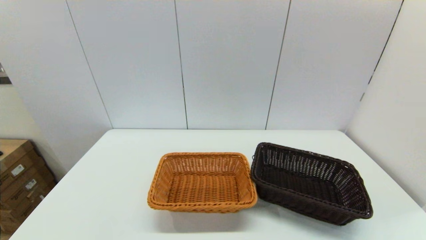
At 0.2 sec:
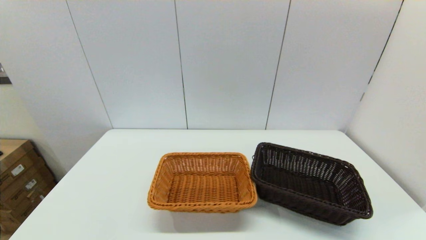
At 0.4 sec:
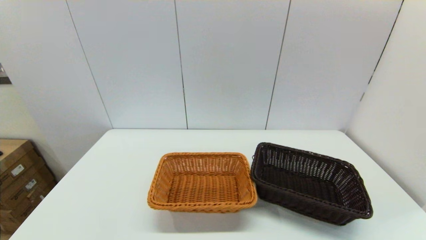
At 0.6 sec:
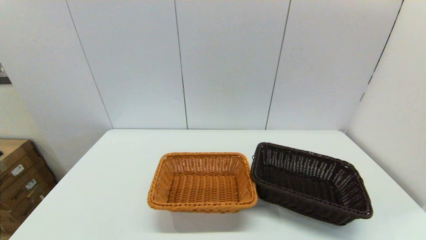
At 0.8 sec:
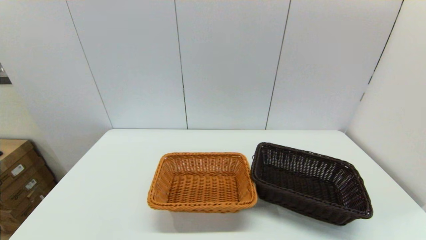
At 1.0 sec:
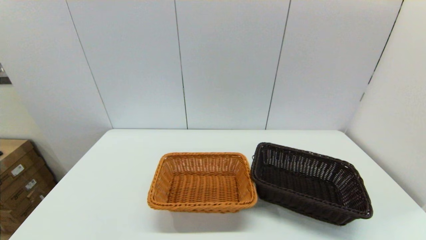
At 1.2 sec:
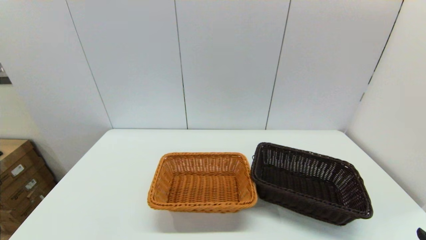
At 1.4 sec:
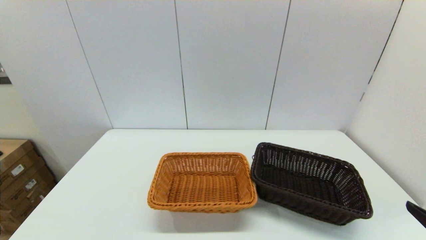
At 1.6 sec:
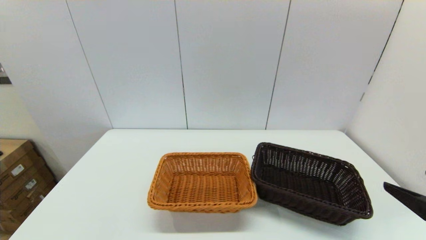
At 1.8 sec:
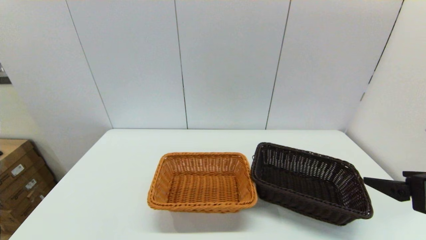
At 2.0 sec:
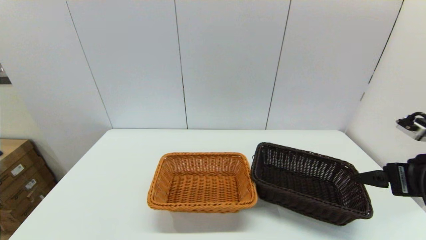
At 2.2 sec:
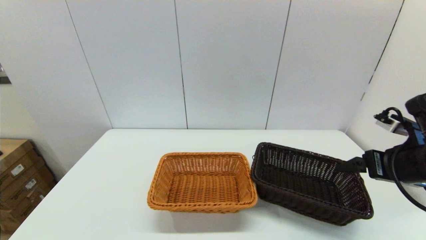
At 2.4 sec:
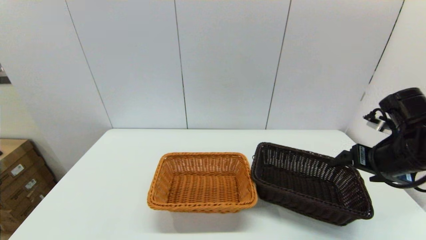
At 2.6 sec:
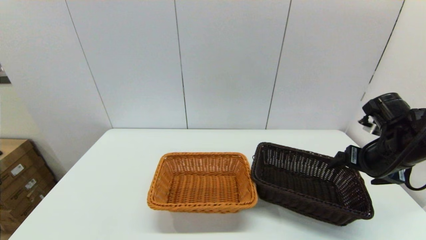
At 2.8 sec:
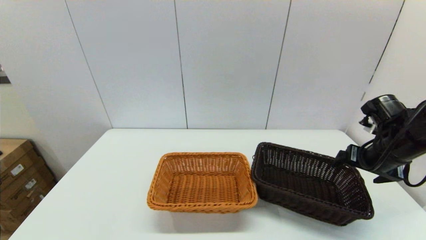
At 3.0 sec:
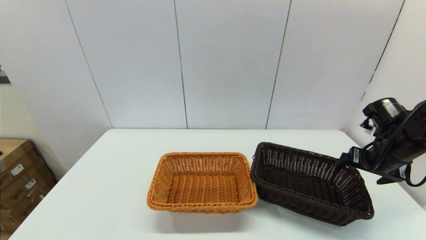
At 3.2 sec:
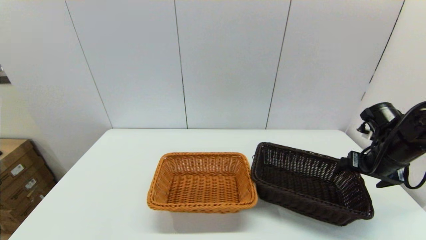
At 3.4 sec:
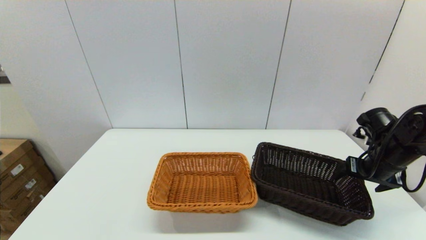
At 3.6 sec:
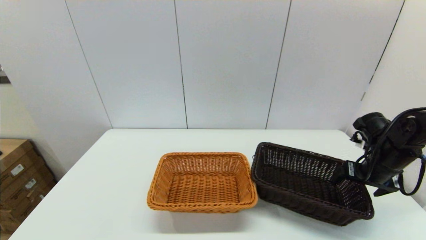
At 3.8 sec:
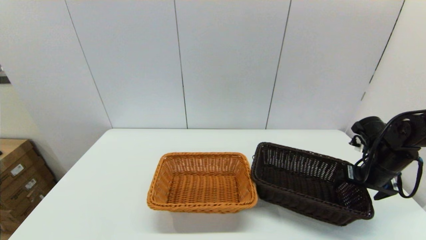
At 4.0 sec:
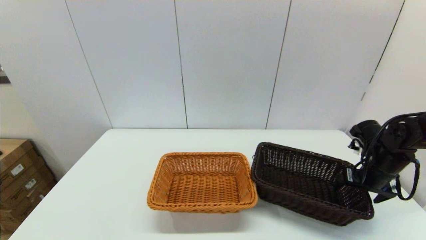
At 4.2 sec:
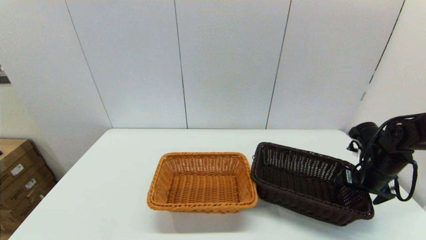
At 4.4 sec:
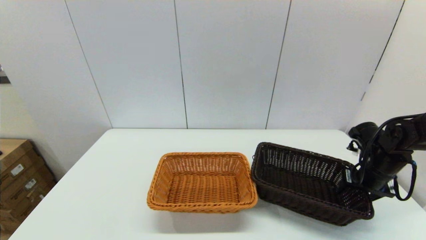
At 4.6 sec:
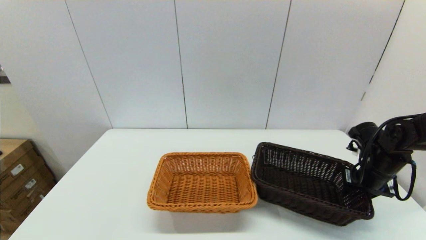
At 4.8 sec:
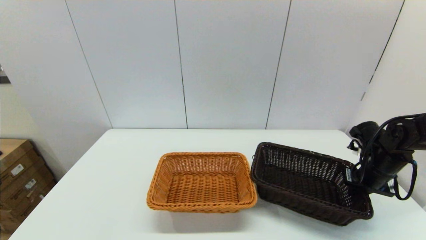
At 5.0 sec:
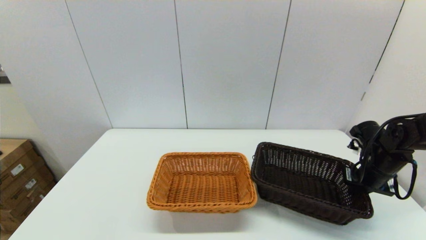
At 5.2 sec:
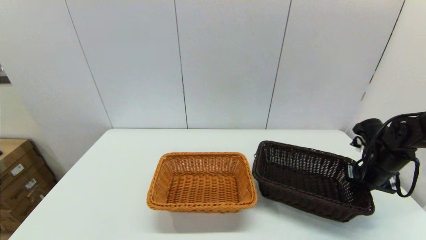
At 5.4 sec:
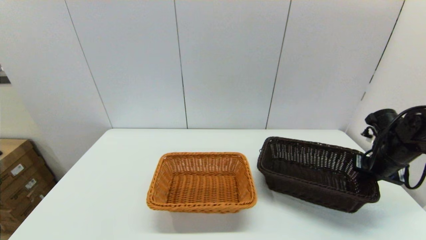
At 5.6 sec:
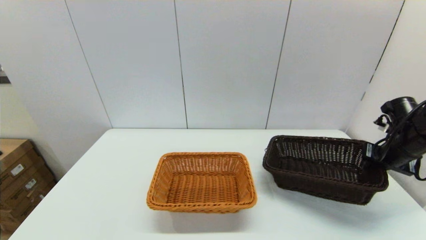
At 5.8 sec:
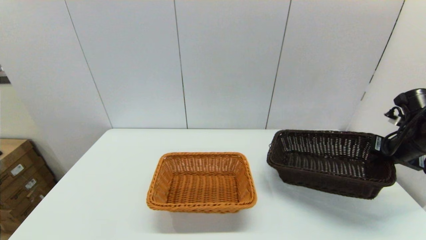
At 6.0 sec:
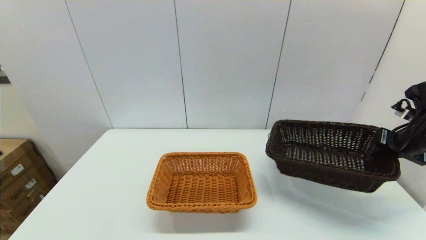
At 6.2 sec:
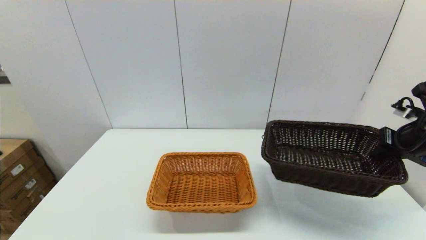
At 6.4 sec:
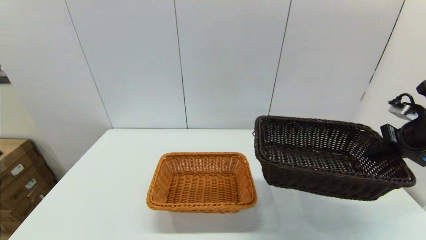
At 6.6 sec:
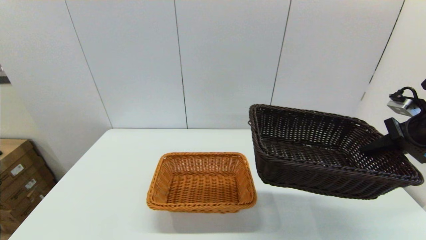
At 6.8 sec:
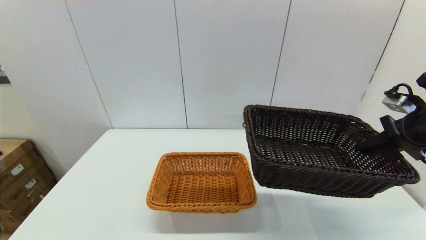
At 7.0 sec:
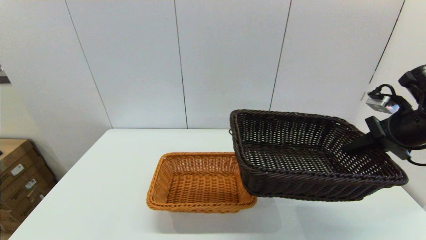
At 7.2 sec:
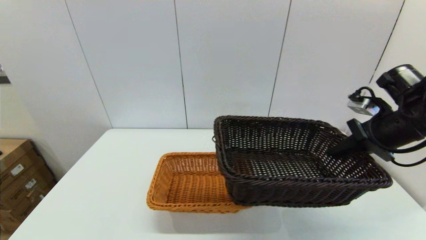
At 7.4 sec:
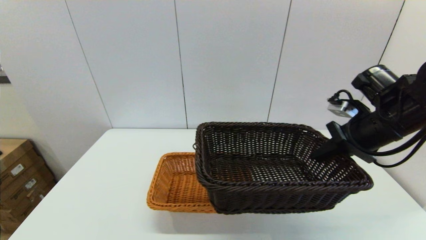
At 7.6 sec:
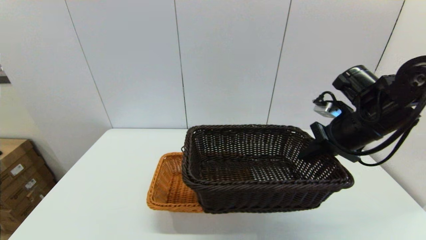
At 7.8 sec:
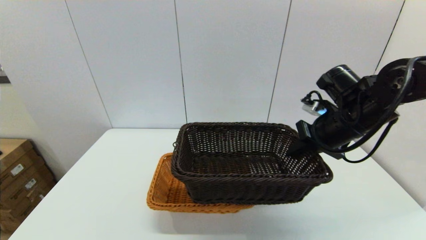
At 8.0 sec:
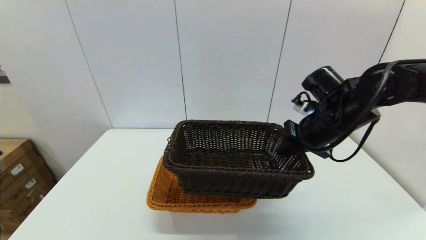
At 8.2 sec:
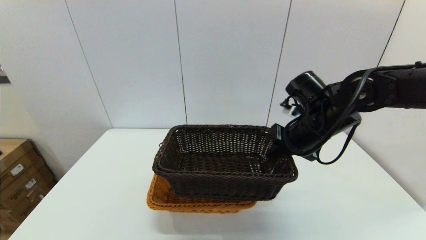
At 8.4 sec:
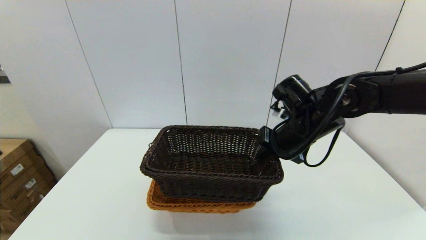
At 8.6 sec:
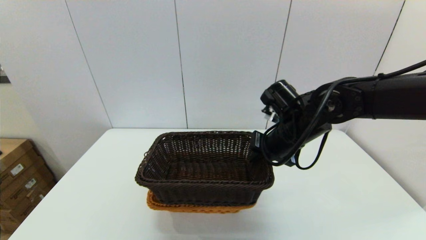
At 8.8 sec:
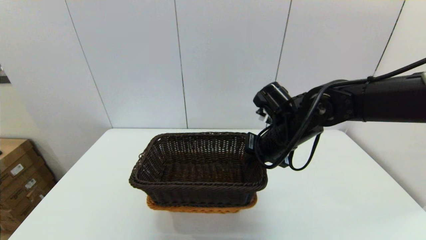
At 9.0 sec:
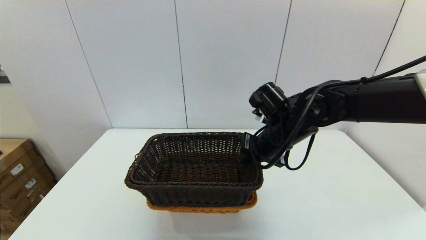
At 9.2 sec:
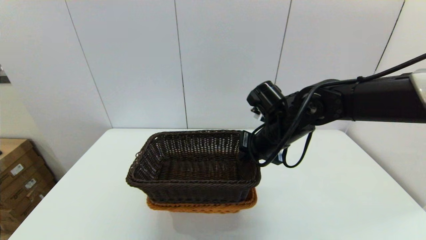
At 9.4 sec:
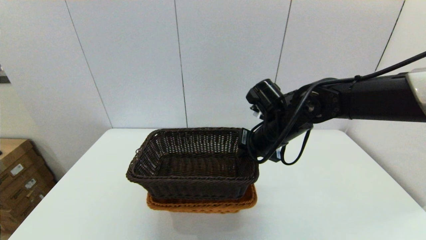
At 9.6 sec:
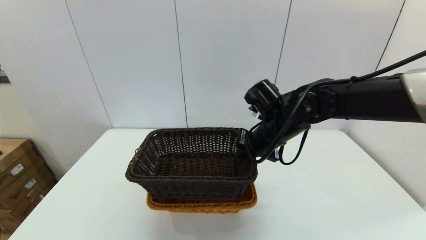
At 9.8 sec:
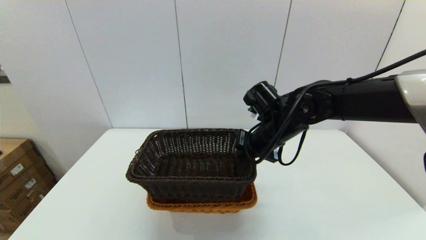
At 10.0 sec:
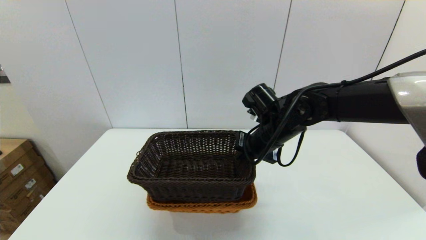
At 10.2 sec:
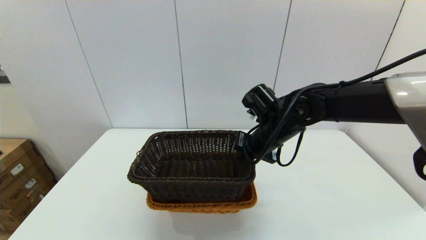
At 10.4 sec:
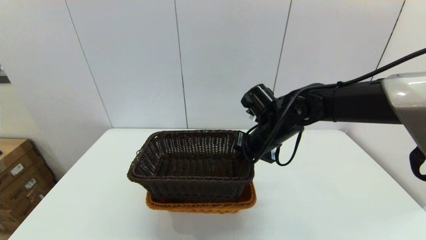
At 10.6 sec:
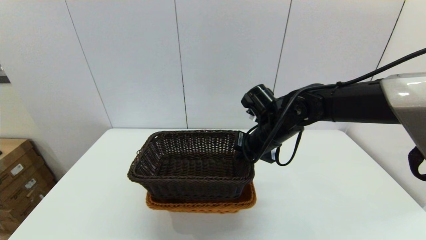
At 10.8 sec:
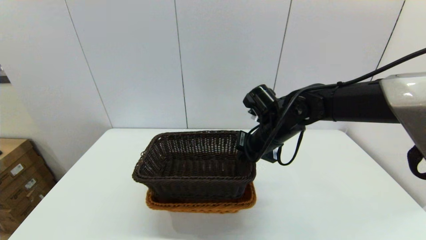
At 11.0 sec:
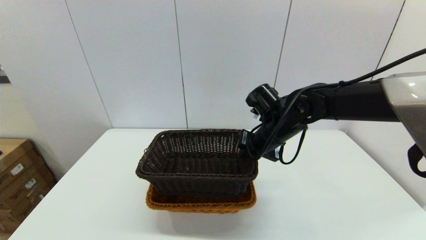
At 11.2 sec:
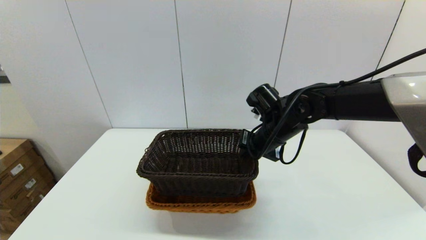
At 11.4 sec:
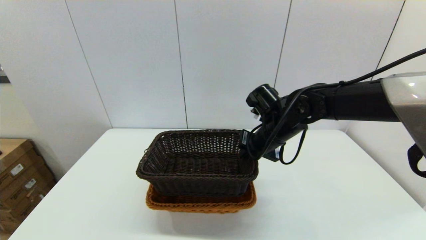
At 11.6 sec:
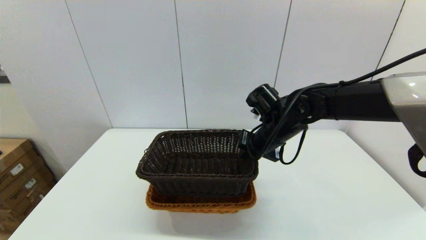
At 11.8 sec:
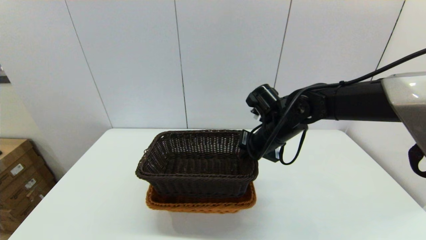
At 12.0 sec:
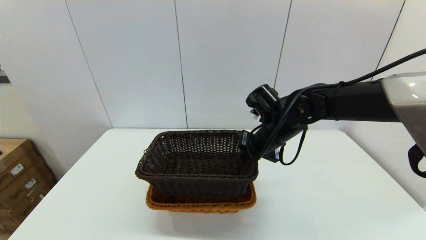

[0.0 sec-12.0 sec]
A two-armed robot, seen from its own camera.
Task of the whole recording: stack a basket on top of another basket.
Step, 0.0 sec to 5.0 sec: Grasp the dark basket with the right gripper.
0.0 sec to 1.6 sec: The right gripper moves upward and forward, roughly 15 cm.
1.6 sec to 3.0 sec: The right gripper heads forward, covering some 20 cm.
3.0 sec to 4.4 sec: The right gripper travels downward by roughly 5 cm, and closes.
4.4 sec to 6.0 sec: The right gripper moves upward, some 10 cm, and closes up.
6.0 sec to 7.6 sec: The right gripper heads to the left, covering roughly 15 cm.
7.6 sec to 9.0 sec: The right gripper goes some 15 cm to the left.
9.0 sec to 12.0 sec: The grippers move only a little.

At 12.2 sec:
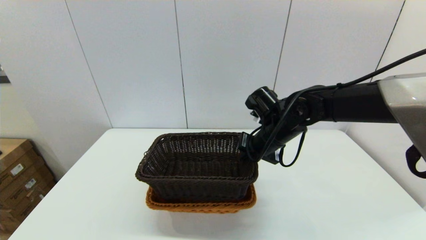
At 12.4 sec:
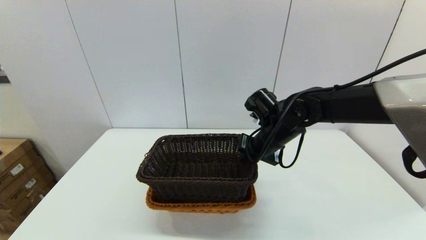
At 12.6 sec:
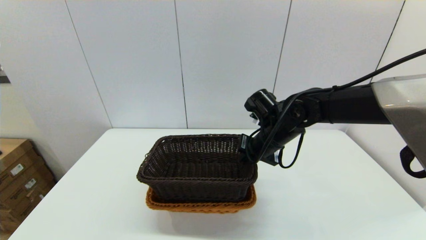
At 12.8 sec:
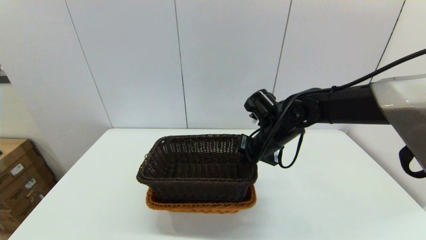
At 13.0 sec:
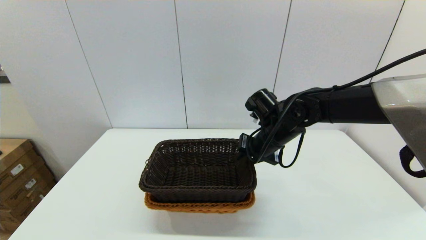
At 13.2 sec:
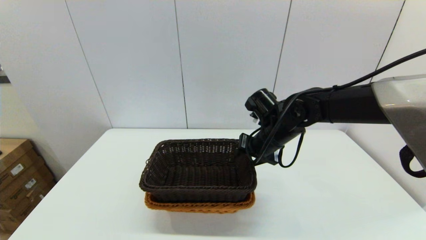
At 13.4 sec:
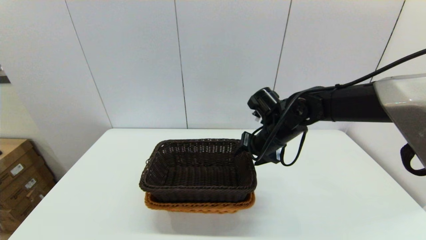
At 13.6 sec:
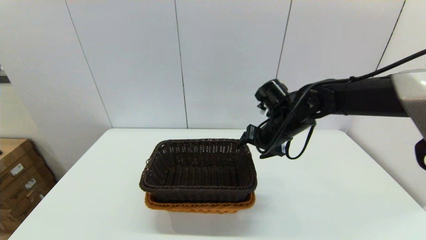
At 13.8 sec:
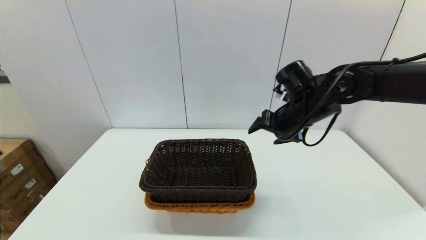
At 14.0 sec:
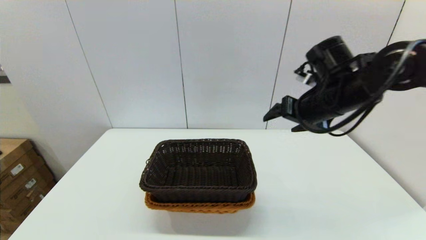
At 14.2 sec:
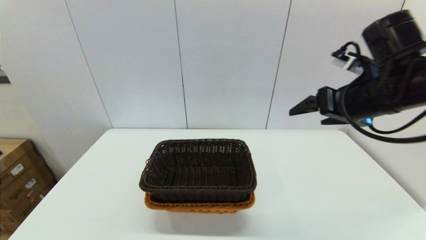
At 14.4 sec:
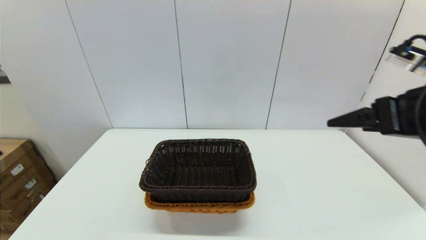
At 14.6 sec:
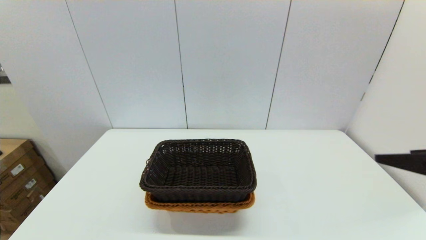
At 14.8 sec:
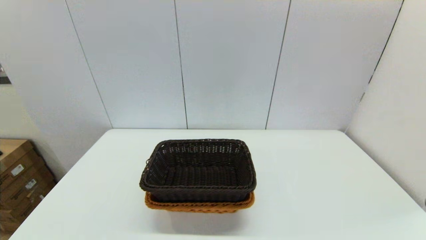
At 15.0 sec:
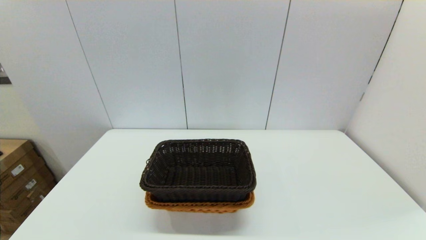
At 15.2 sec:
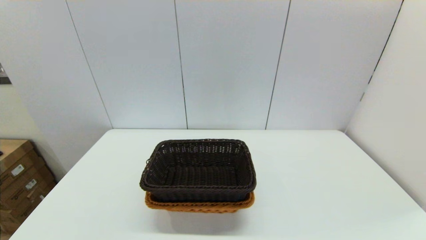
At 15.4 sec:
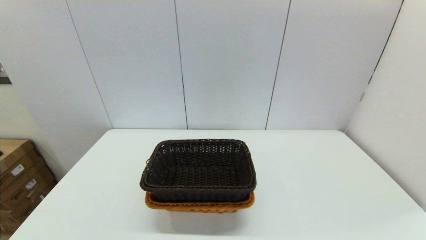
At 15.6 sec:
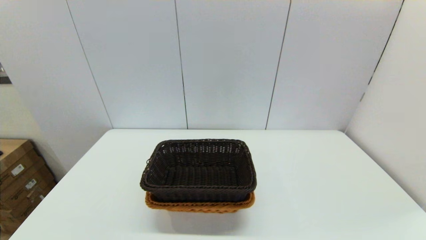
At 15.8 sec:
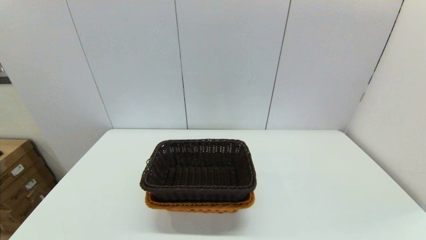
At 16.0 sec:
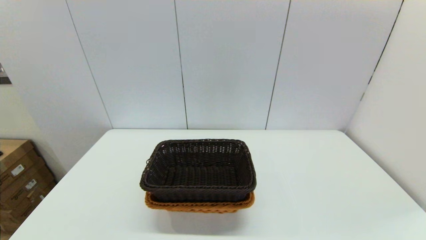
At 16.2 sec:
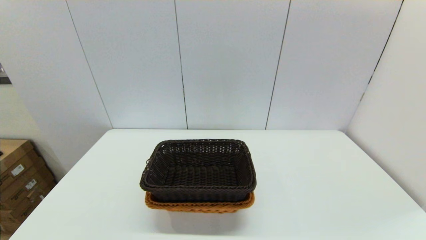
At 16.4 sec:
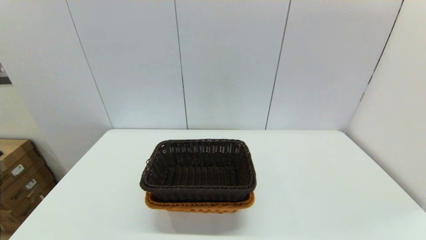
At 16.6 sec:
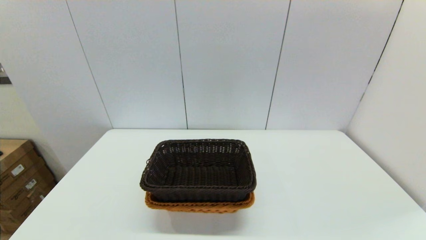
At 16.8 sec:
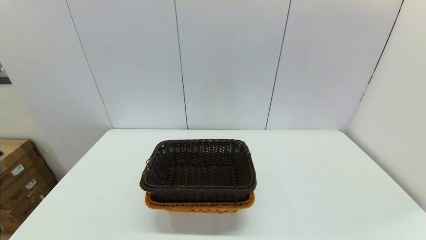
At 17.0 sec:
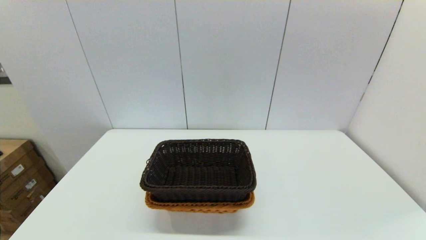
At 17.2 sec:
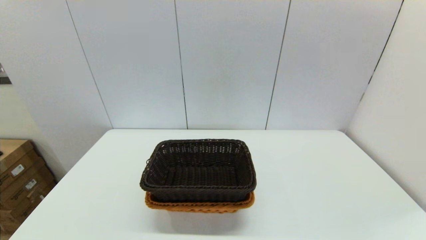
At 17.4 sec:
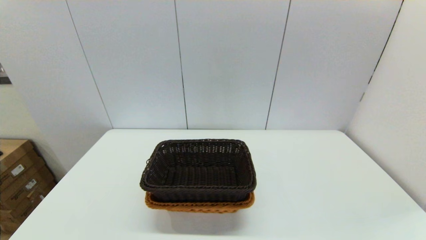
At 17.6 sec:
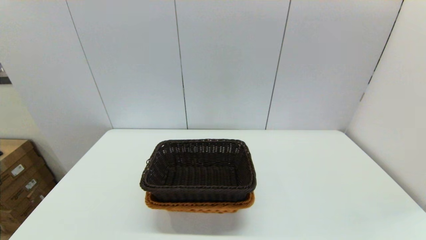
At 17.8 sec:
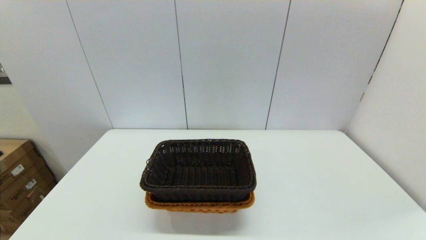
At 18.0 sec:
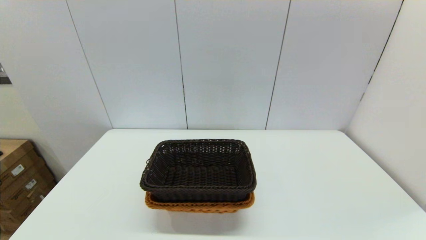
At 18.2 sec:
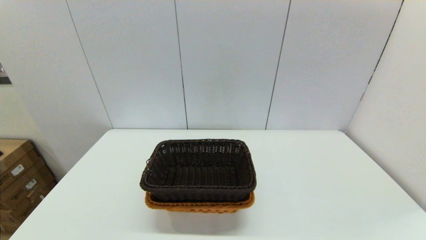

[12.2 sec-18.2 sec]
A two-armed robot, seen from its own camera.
Task of the whole recording: stack a basket on top of another basket.
12.2 sec to 13.8 sec: The right gripper shifts about 10 cm upward and to the right, and opens its fingers.
13.8 sec to 15.2 sec: The right gripper shifts some 40 cm backward and to the right.
